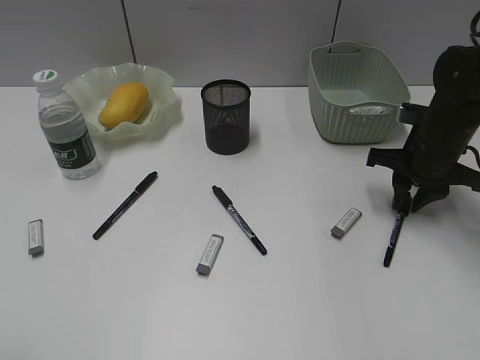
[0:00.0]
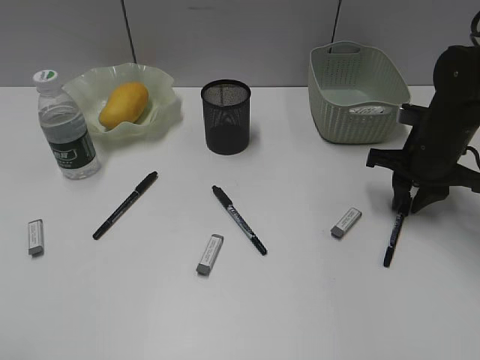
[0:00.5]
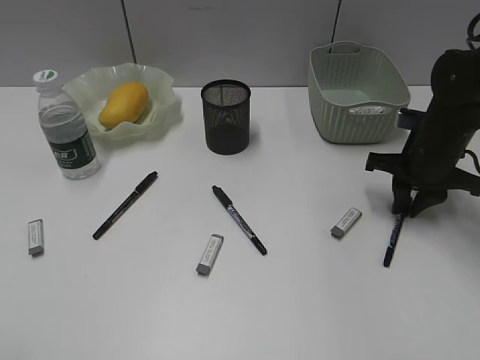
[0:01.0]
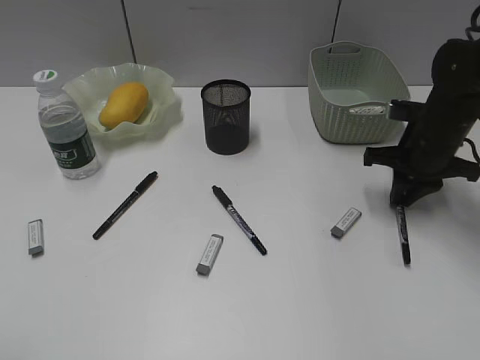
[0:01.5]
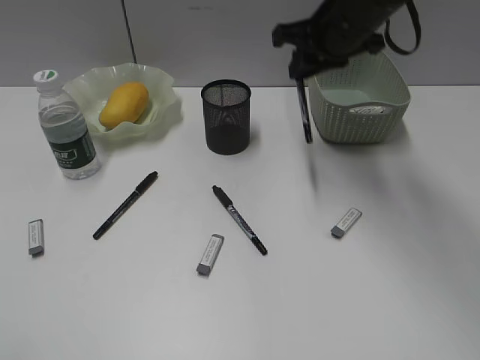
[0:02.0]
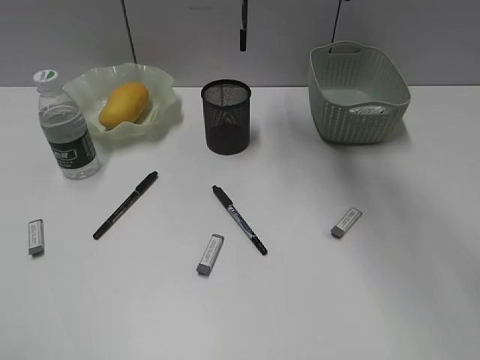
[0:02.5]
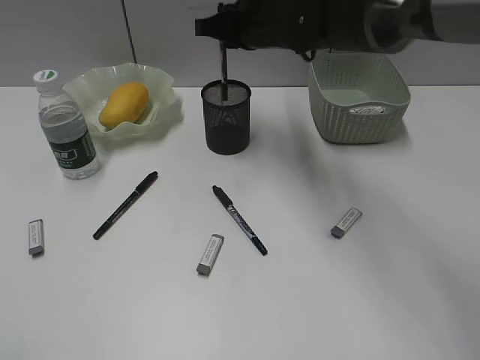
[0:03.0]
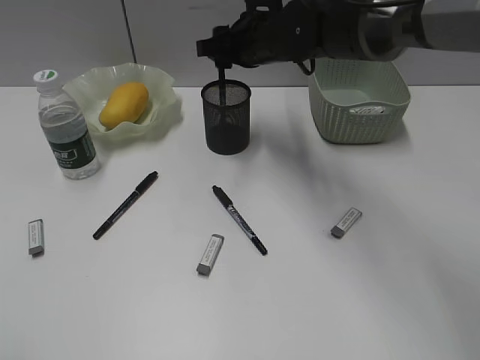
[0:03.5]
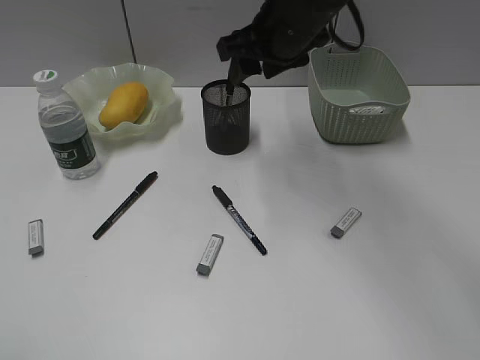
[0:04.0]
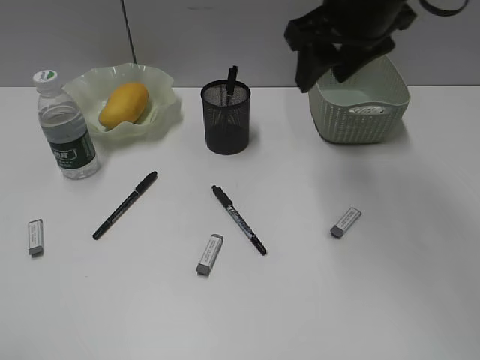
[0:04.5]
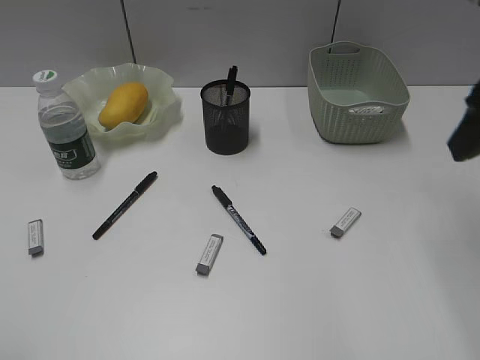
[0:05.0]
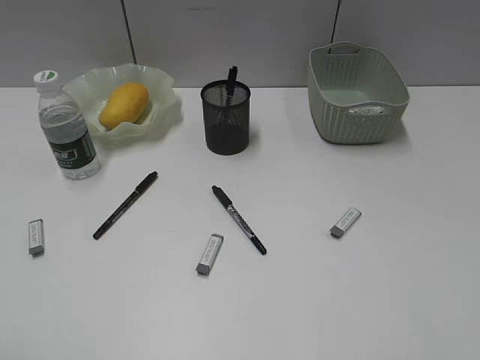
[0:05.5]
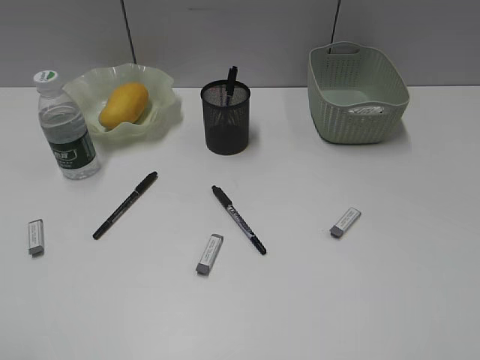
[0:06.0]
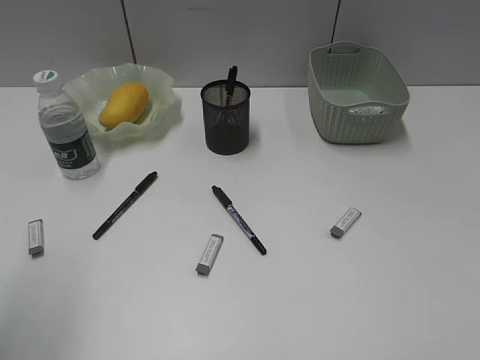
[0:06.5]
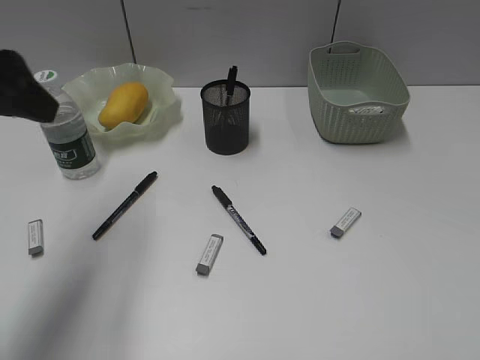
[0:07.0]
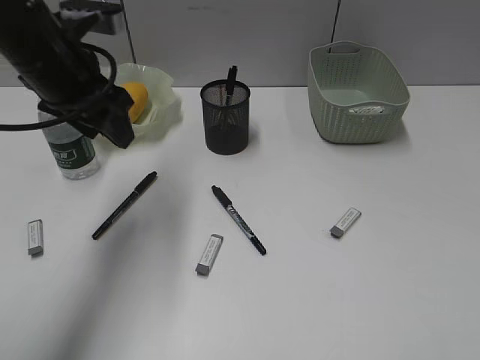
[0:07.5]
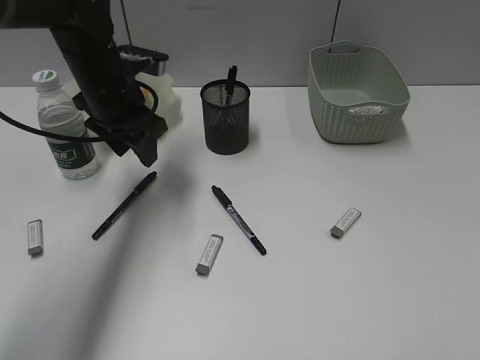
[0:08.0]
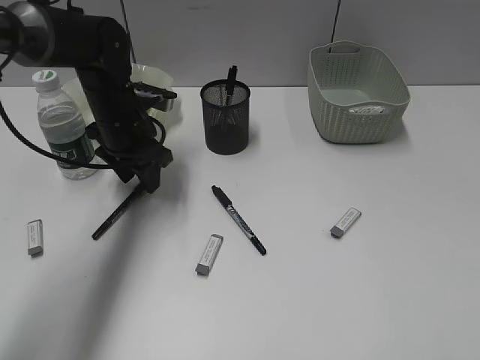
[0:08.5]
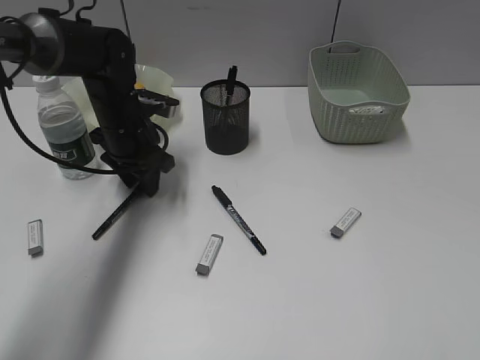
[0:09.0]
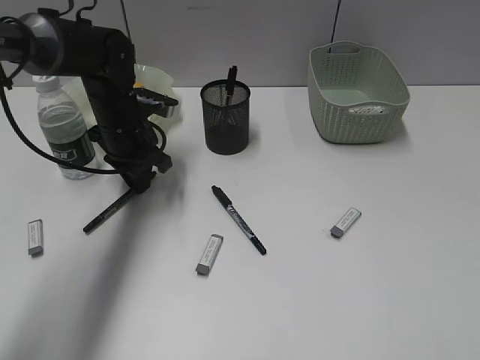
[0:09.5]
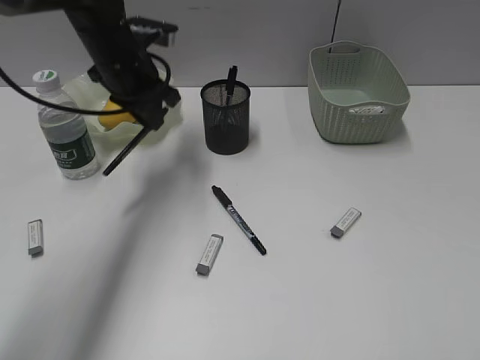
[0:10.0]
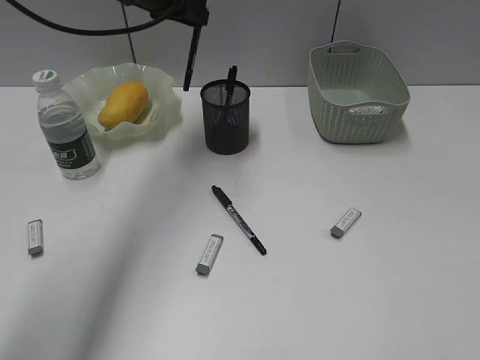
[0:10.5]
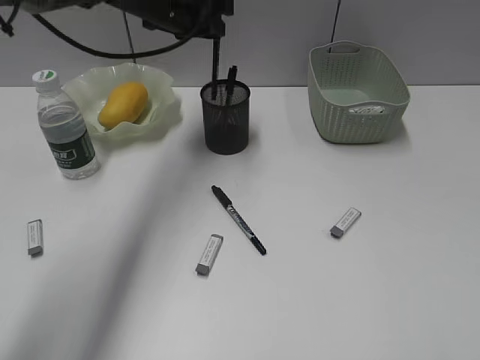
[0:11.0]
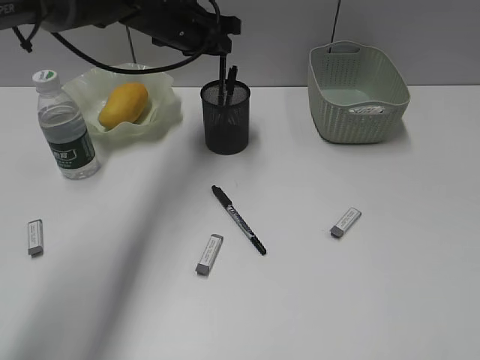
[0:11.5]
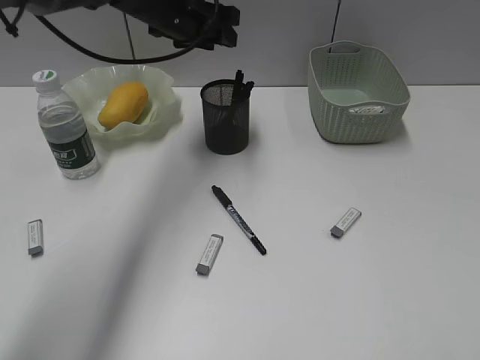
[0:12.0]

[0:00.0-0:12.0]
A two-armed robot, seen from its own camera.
Step, 0:01.5 to 0:04.0: Place the black pen in pen holder with right gripper.
Step, 0:04.5 to 0:09.5: Grasp the black pen with left gripper.
Step, 0:10.0 to 0:11.5: Place the black pen in pen holder with left gripper.
0:00.0 to 0:02.0: The right gripper shifts some 20 cm upward and to the left.
0:02.0 to 0:04.0: The right gripper moves up and down over roughly 10 cm, changing direction 2 times, and opens its fingers.
0:04.0 to 0:06.0: The right gripper is displaced backward and to the right by approximately 40 cm.
0:06.0 to 0:08.0: The left gripper travels forward and to the right by roughly 40 cm.
0:08.0 to 0:10.0: The left gripper travels downward and back again, some 5 cm each way, and closes up.
0:10.0 to 0:12.0: The left gripper goes approximately 5 cm to the right, and opens its fingers.

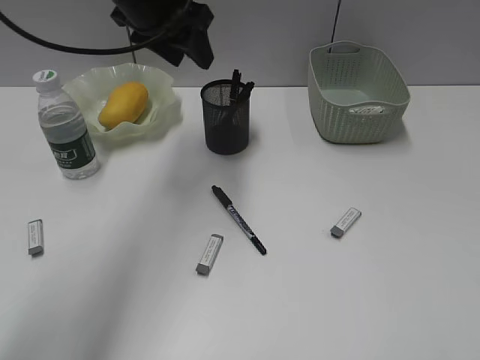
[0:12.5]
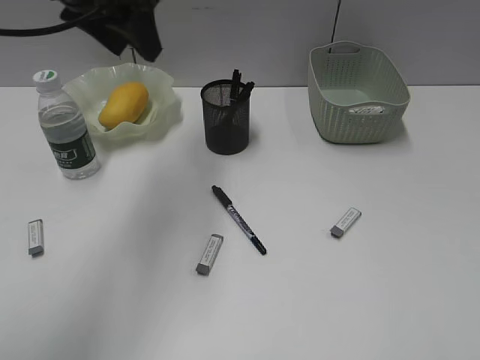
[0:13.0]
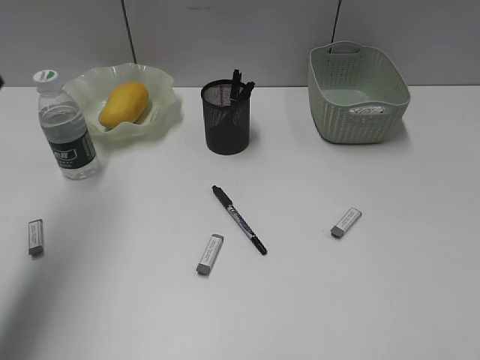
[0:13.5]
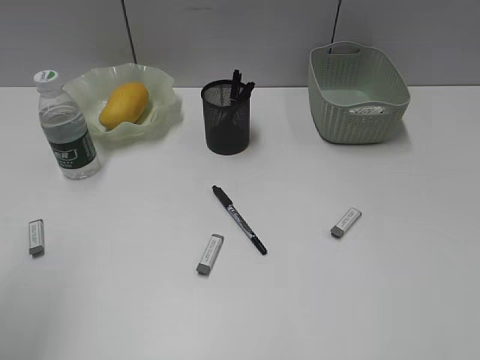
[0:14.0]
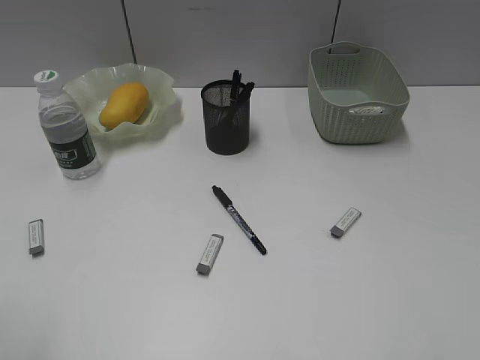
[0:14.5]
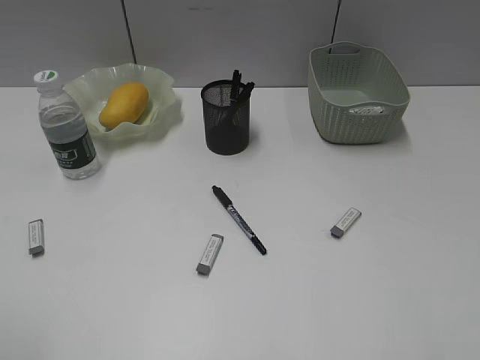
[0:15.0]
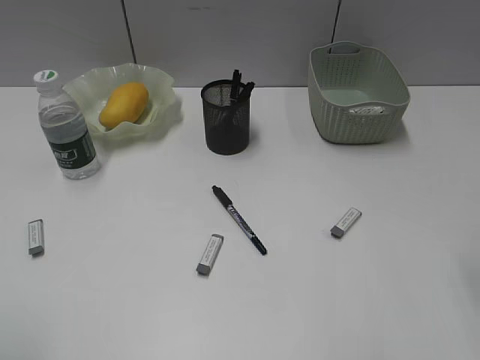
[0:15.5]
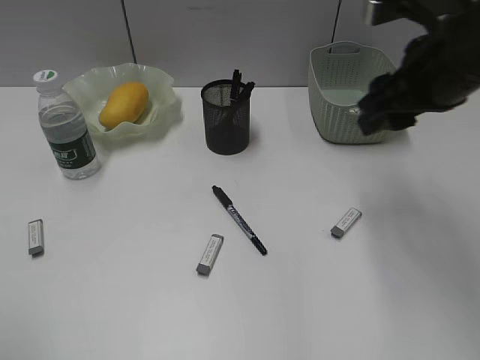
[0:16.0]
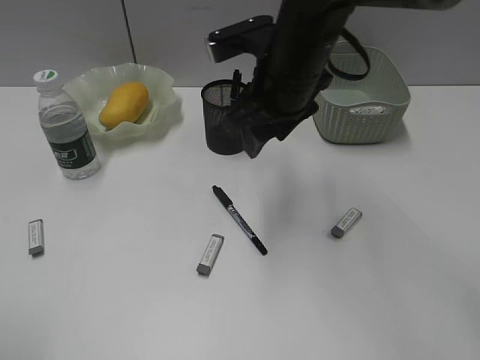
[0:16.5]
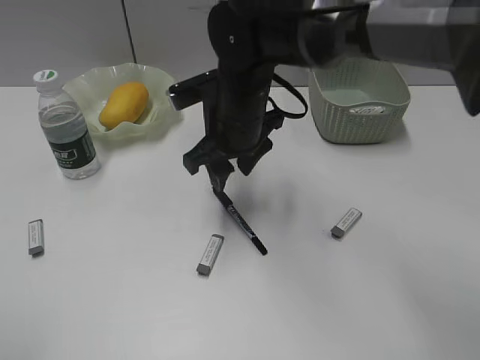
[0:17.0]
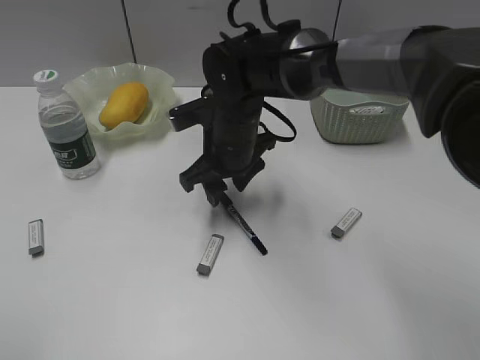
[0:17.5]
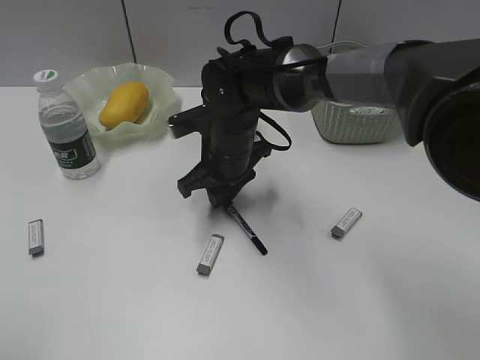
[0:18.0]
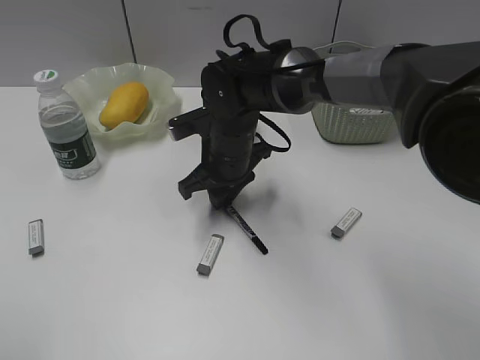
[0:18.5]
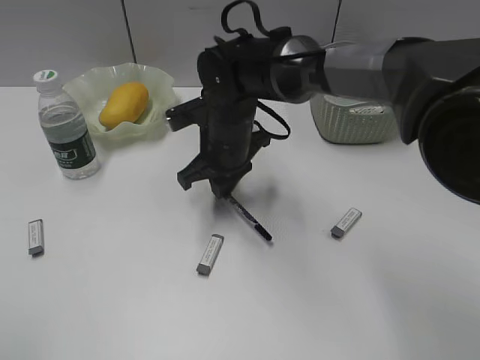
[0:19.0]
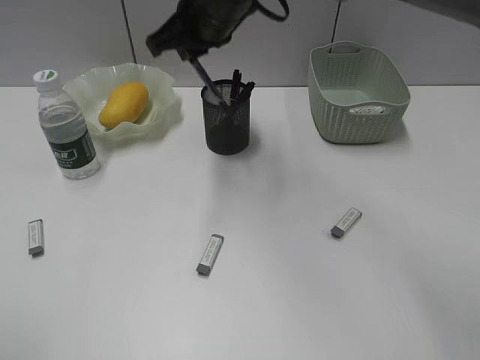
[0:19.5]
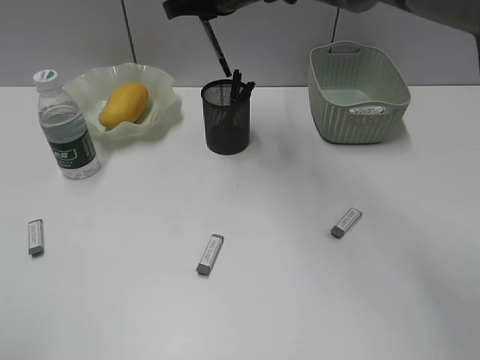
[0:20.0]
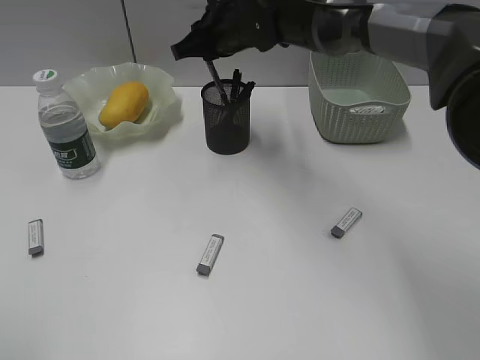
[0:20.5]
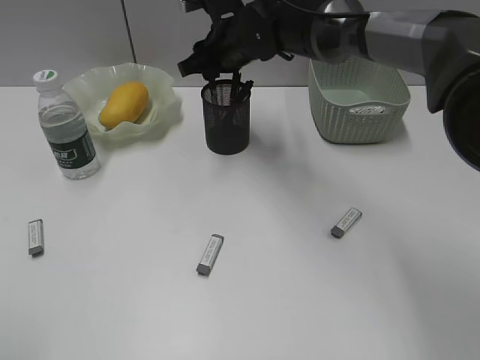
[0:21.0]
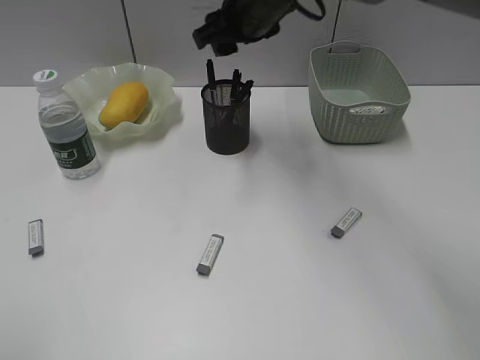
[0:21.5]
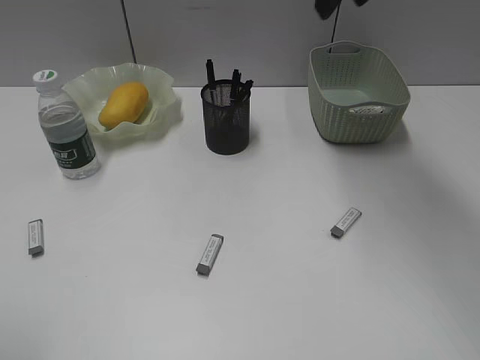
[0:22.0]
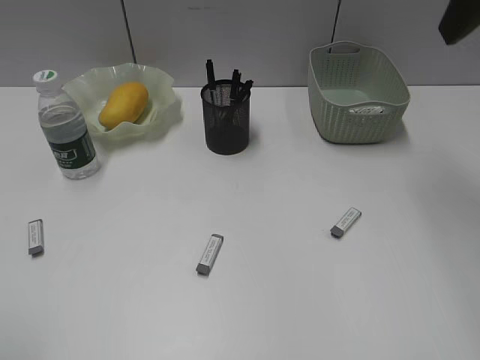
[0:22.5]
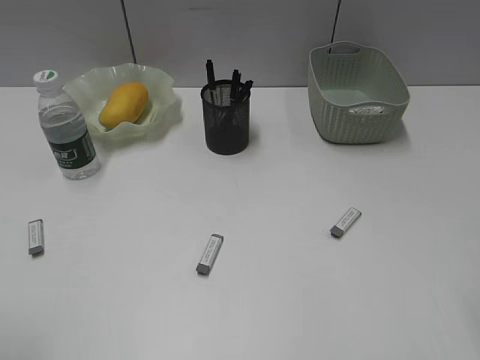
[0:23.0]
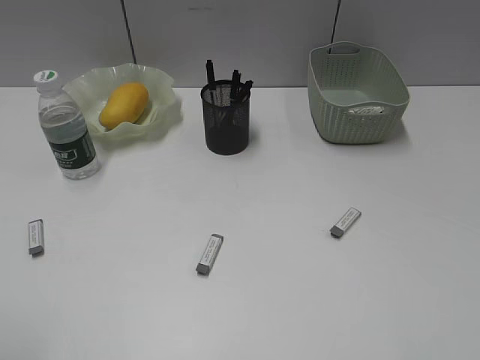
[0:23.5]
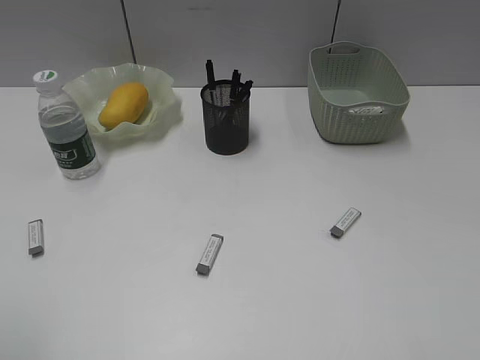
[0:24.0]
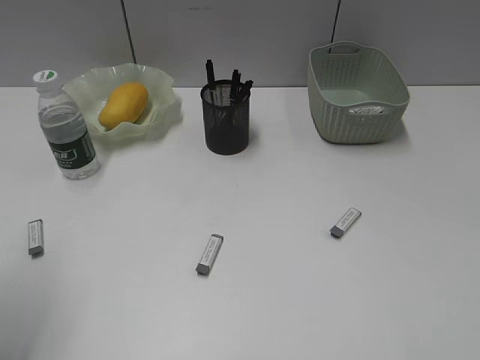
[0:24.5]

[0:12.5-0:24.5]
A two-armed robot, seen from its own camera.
Step, 0:12.5 to 0:18.5: Grasp the black pen with right gripper.
Step, 0:19.0 to 0:21.5: Place the black pen in pen holder with right gripper.
0:12.5 to 0:14.5: The left gripper moves backward and to the left, roughly 40 cm.
0:14.5 to 0:16.5: The right gripper moves forward and to the left, some 40 cm.
0:16.5 to 0:18.5: The right gripper moves downward and to the left, approximately 15 cm, and closes.
0:18.5 to 0:20.5: The right gripper heads upward and forward, covering approximately 15 cm.
0:20.5 to 0:22.5: The right gripper shifts approximately 35 cm to the right, upward and backward, and opens.
0:22.5 to 0:24.5: The right gripper shifts some 25 cm backward. The left gripper travels forward by some 10 cm.

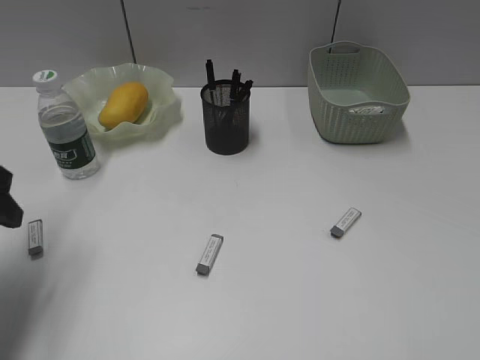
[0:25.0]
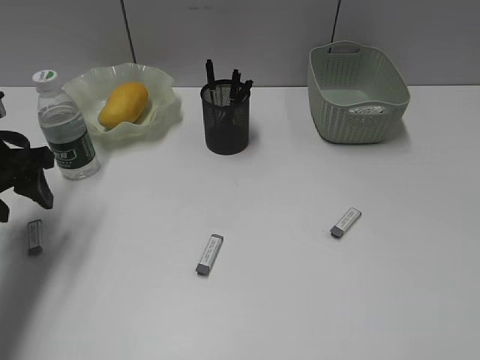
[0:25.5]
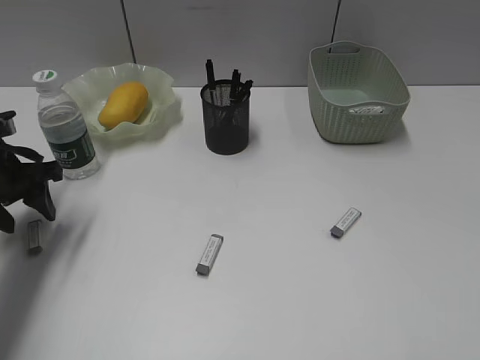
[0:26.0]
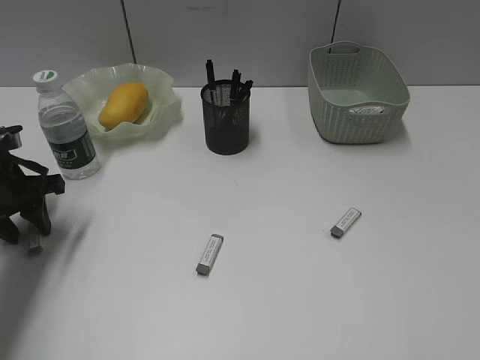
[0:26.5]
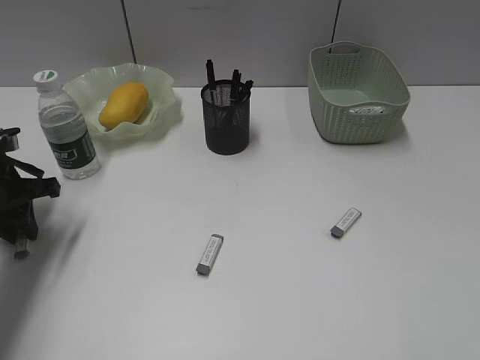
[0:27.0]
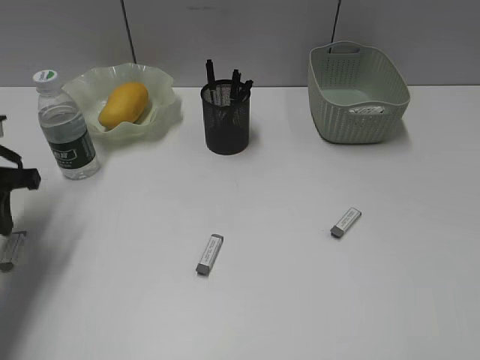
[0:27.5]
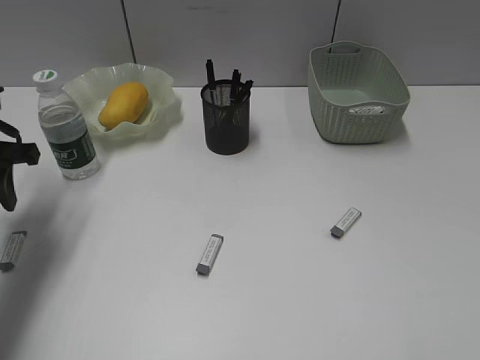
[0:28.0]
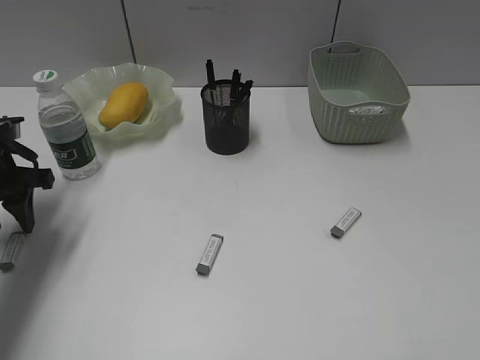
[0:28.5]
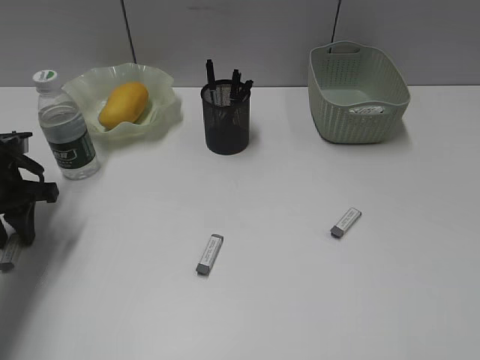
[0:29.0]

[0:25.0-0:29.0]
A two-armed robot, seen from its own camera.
0:25.0 to 0:27.0: The left gripper goes roughly 15 cm forward and downward, and closes its fingers.
